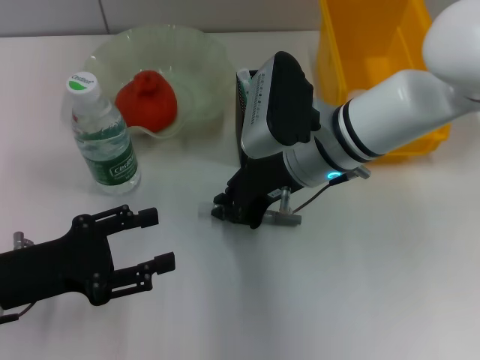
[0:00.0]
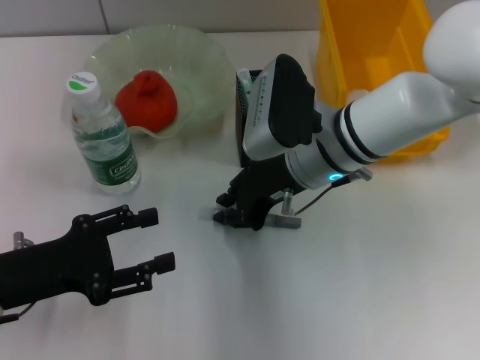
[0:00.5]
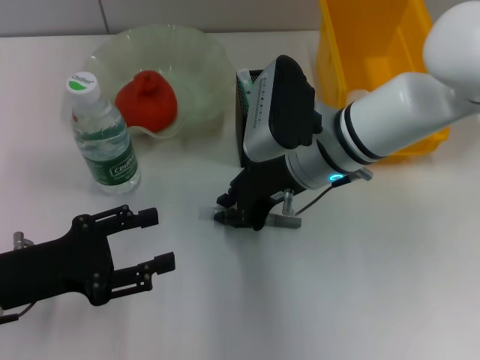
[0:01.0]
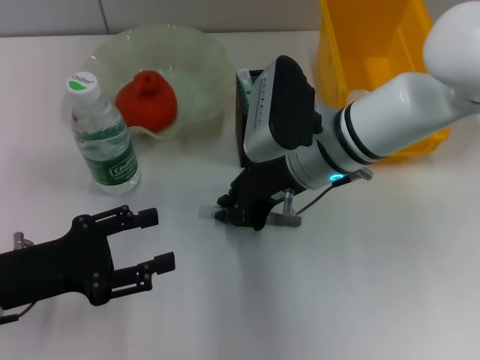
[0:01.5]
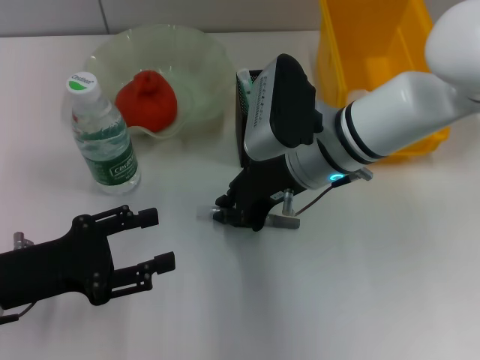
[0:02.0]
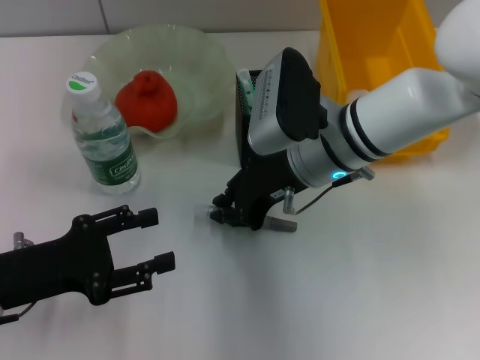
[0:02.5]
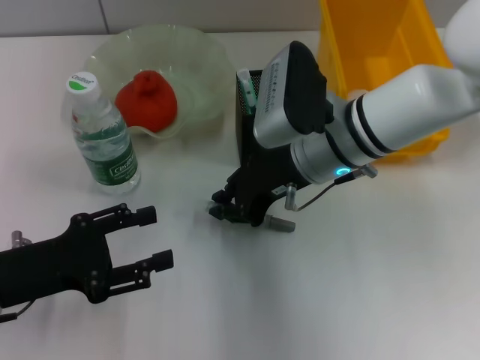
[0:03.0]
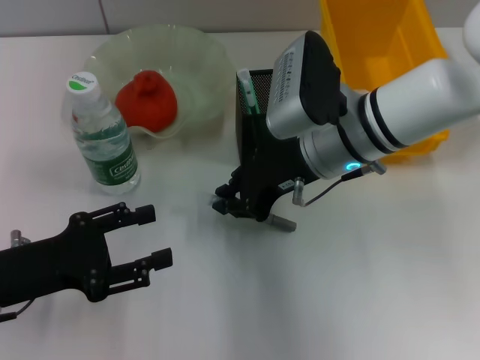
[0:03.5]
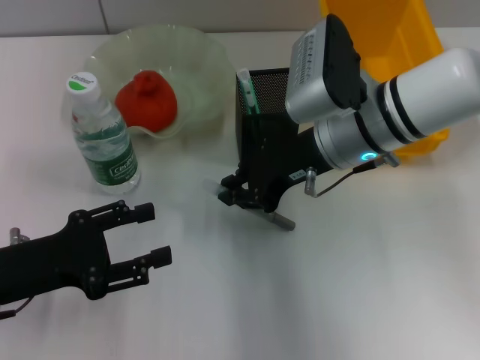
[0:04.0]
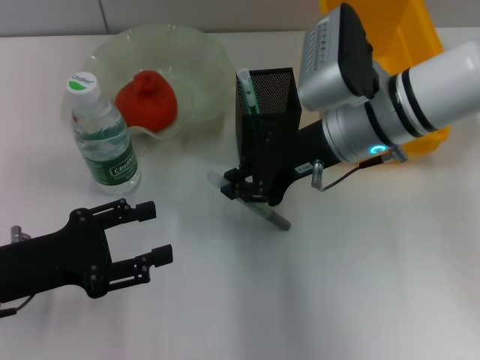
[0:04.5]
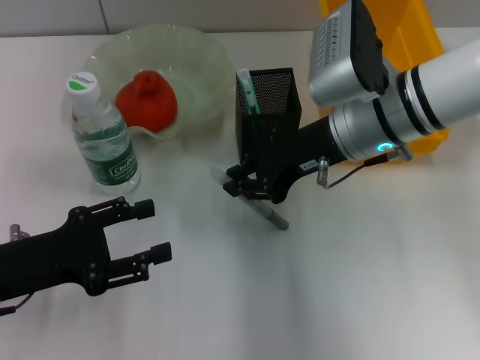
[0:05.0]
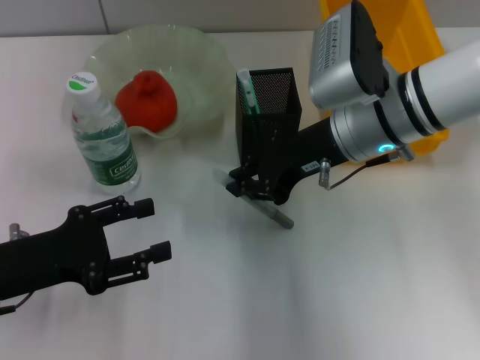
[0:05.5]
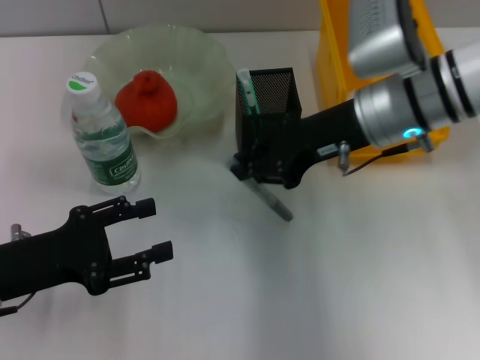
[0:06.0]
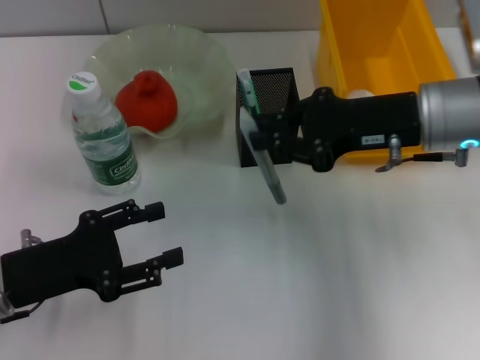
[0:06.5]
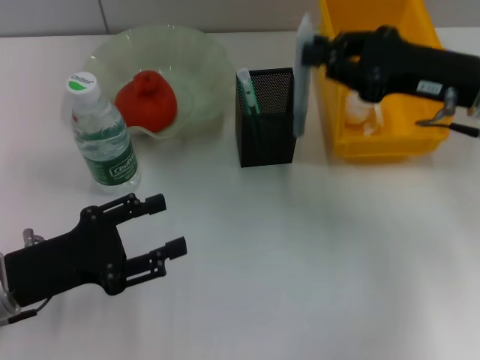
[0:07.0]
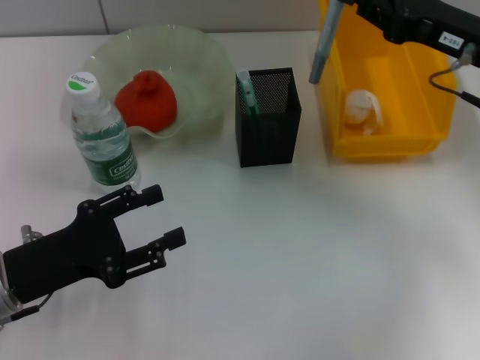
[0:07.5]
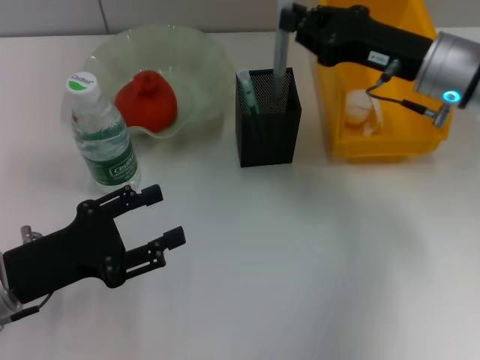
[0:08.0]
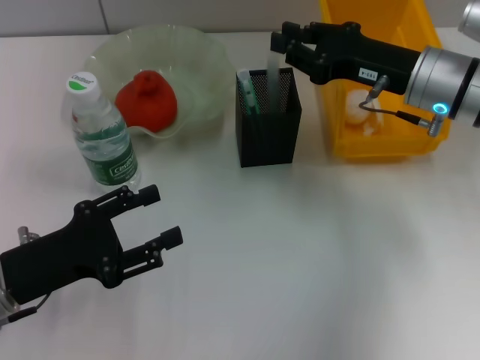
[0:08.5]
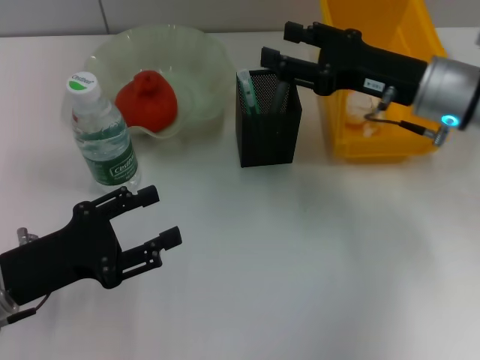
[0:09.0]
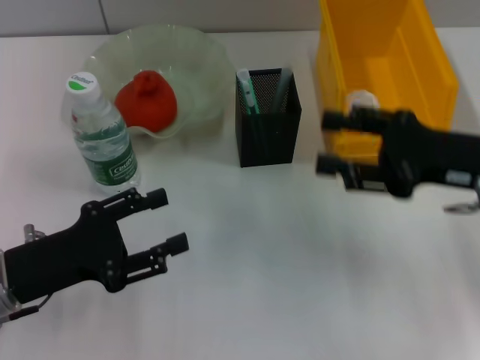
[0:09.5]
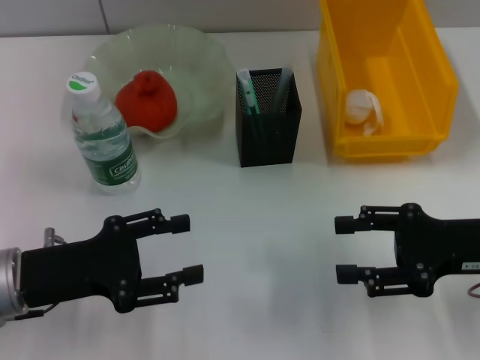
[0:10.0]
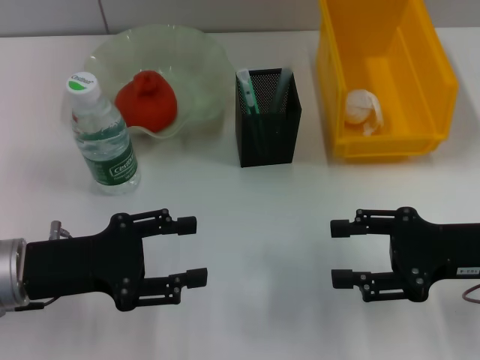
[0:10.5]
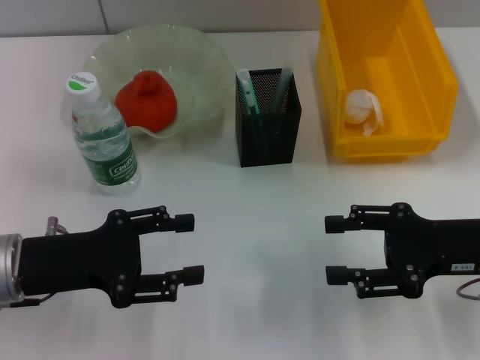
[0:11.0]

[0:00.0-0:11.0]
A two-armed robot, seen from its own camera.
Step, 0:00.0 to 0:02.0: Grab the gray glue with the right hand.
Step, 0:02.5 to 0:08.5: Place the gray glue into the pen holder with the right hand.
0:00.0 to 0:02.0: Both grippers stay about where they are.
0:02.0 to 0:05.5: The grippers stay close to where they were, moving slightly.
0:05.5 to 0:07.5: The right gripper is displaced to the right by about 15 cm.
0:07.5 to 0:09.0: The right gripper changes place by roughly 5 cm, and opens up.
0:09.0 to 0:11.0: The right gripper travels backward and to the right by approximately 15 cm.

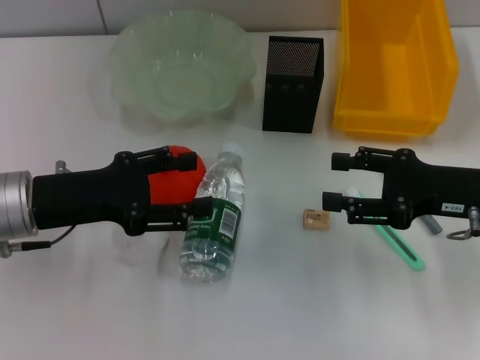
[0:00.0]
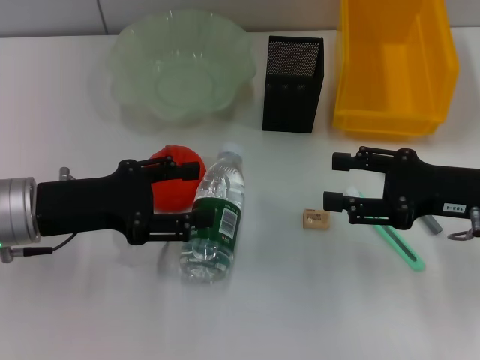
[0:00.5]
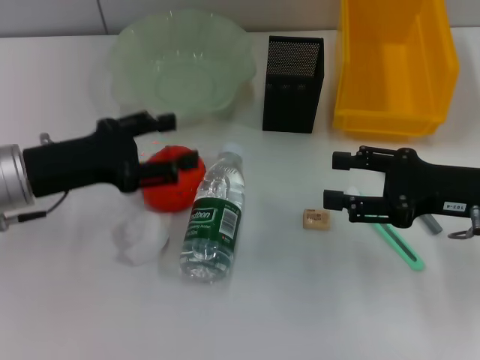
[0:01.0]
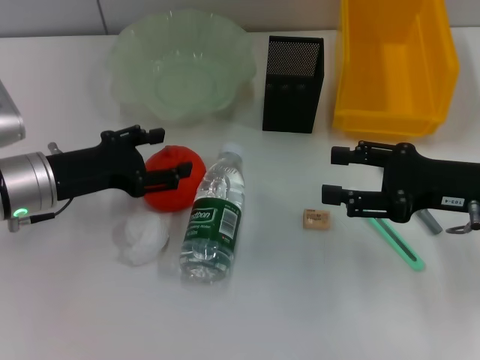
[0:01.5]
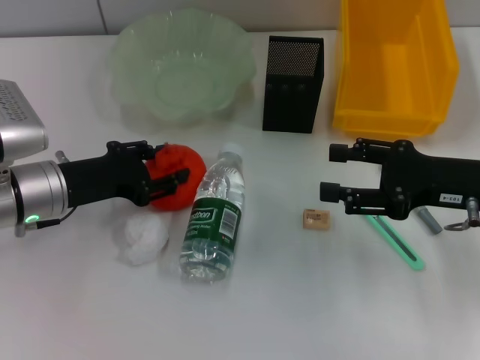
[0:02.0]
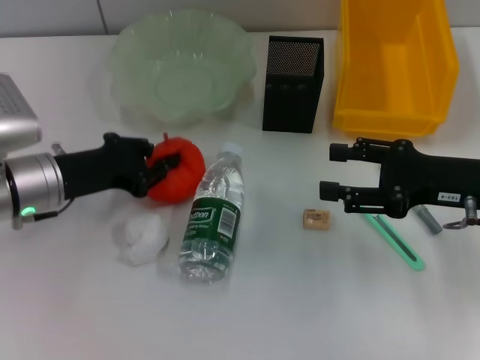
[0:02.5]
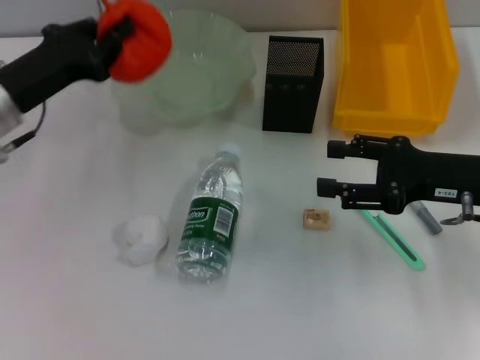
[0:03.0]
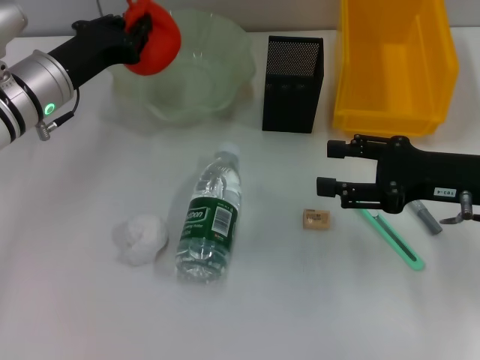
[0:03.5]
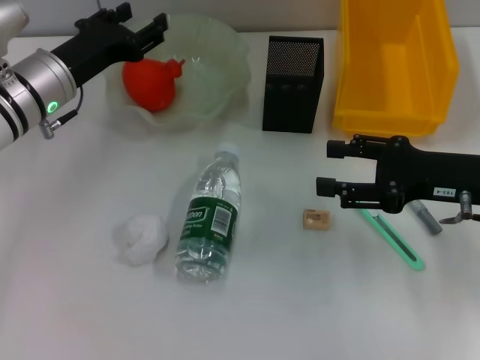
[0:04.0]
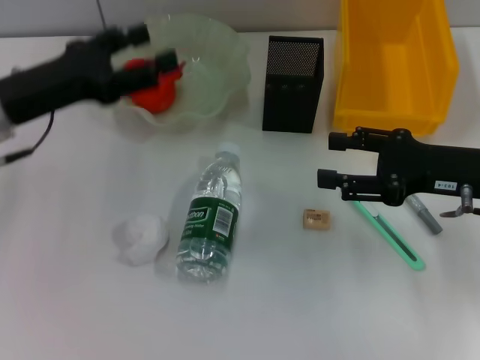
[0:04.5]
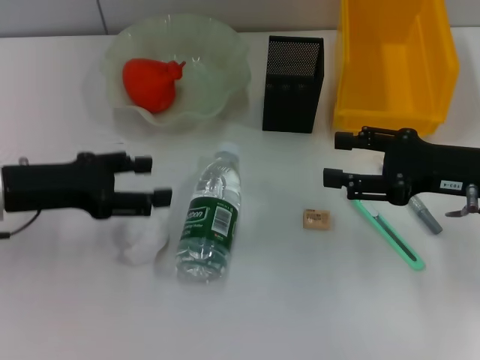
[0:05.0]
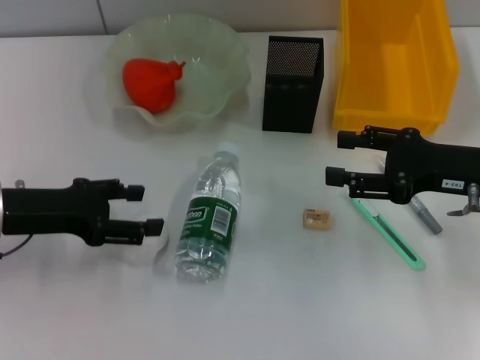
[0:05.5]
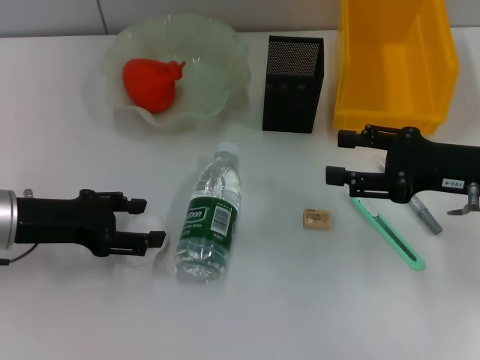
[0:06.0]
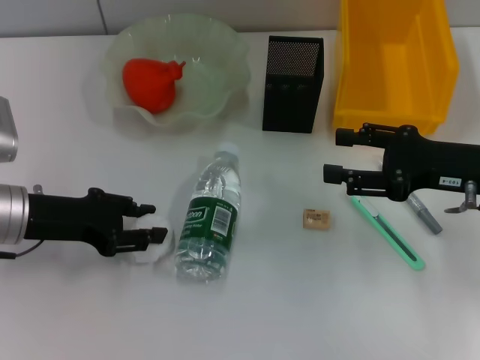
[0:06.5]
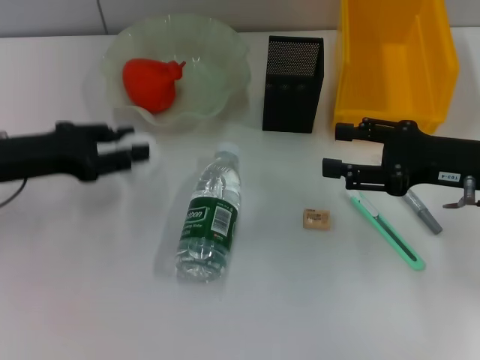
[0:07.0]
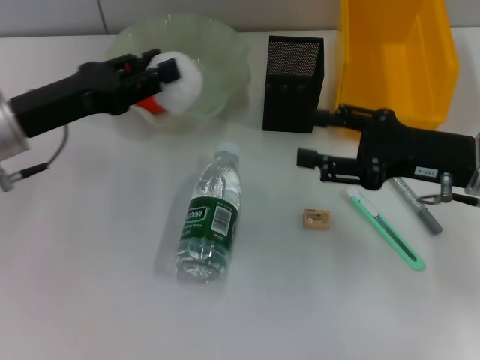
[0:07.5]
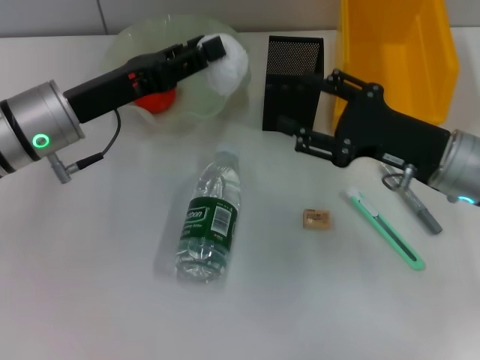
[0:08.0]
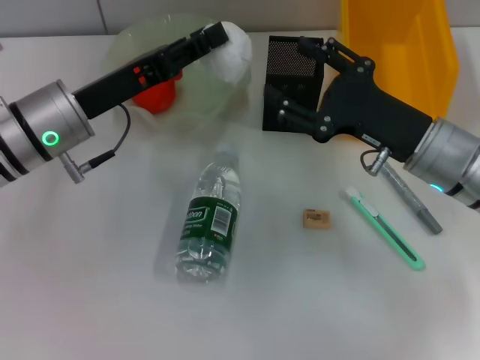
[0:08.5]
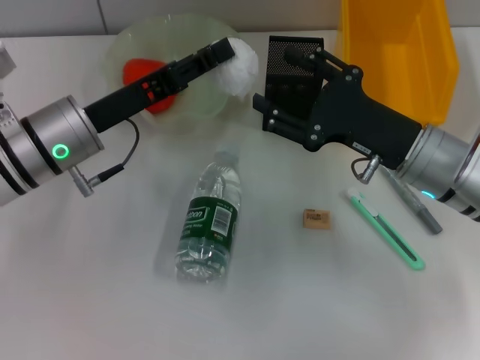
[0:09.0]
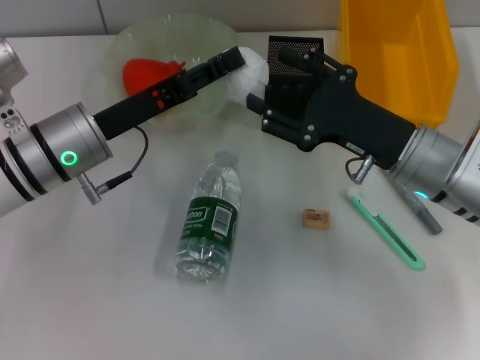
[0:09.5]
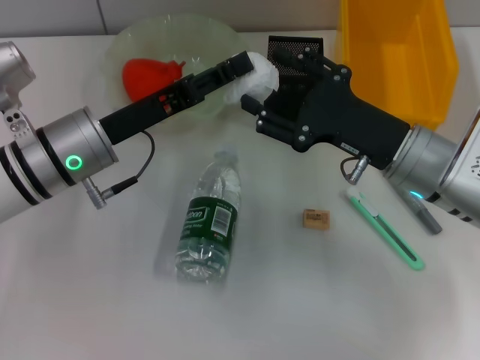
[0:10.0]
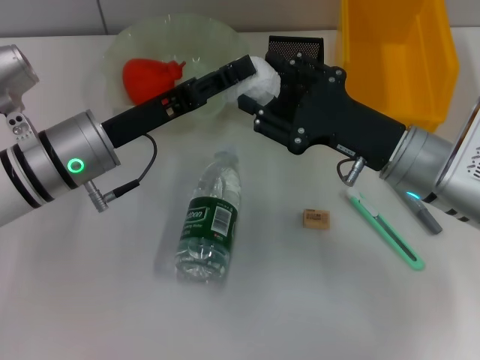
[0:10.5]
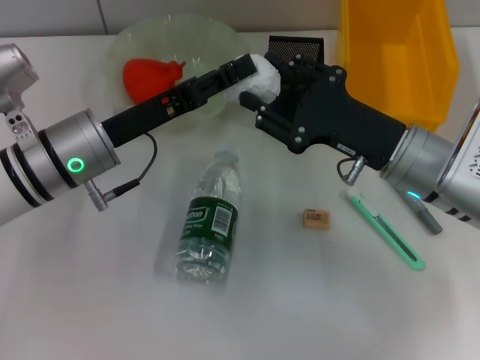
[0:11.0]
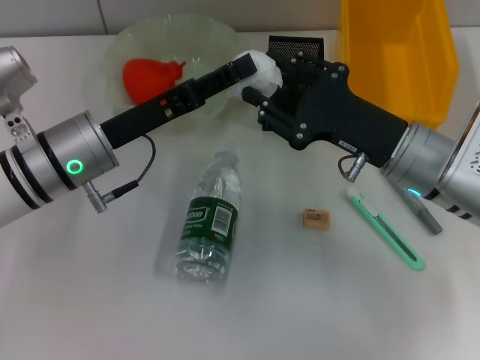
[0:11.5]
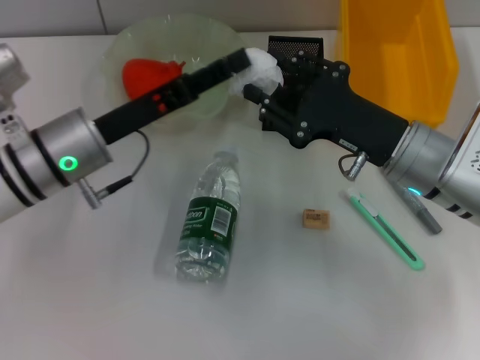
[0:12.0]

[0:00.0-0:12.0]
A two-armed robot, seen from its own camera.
Step, 0:00.0 to 0:02.0: Grab the orange with the left hand.
Step, 0:02.5 to 0:03.5: Place the orange into the fruit bowl with the left hand.
Step, 0:04.5 to 0:06.0: Grab the paper ball with the left hand.
Step, 0:06.5 to 0:12.0: Pass the paper ball from the left hand to the right hand.
0:00.0 to 0:02.0: The left gripper moves some 5 cm.
0:02.0 to 0:04.0: The left gripper shifts approximately 10 cm forward, and closes, then opens again.
0:04.0 to 0:06.0: The left gripper is displaced backward and to the left by approximately 10 cm.
0:06.0 to 0:08.0: The right gripper moves to the left, about 5 cm; the left gripper heads to the right, covering some 5 cm, and closes up.
0:10.0 to 0:12.0: The left gripper opens; the right gripper closes its fingers.

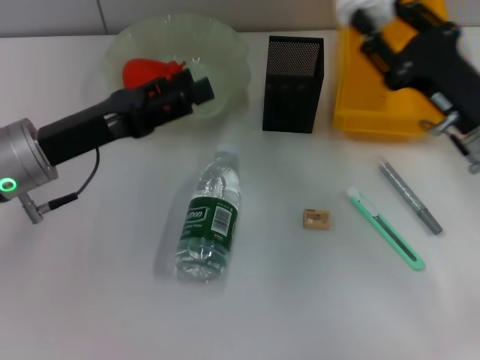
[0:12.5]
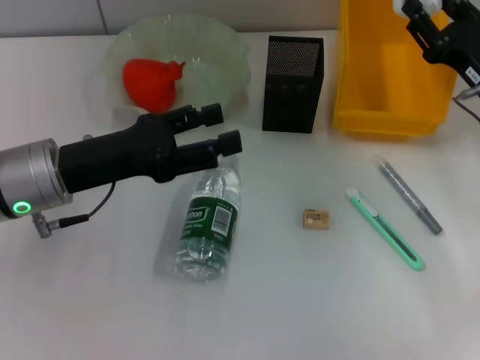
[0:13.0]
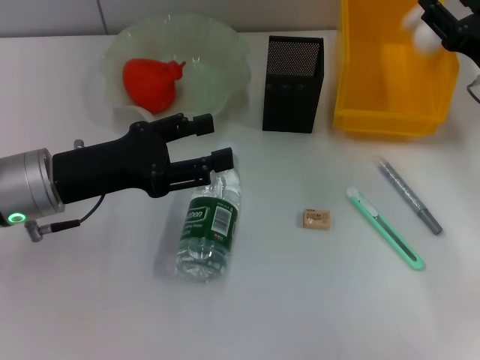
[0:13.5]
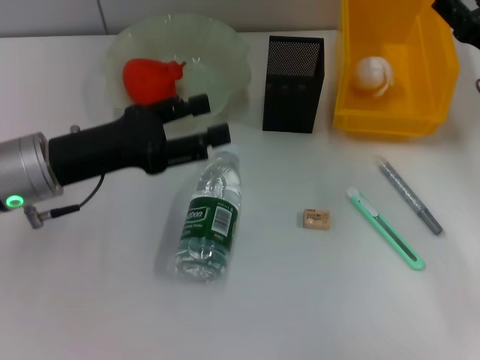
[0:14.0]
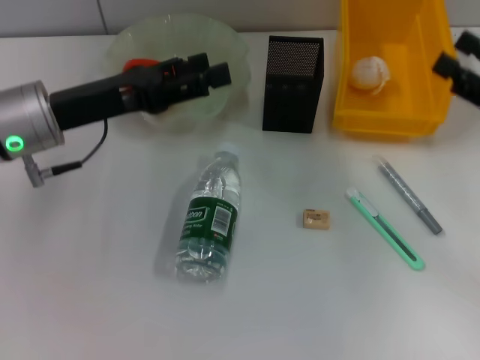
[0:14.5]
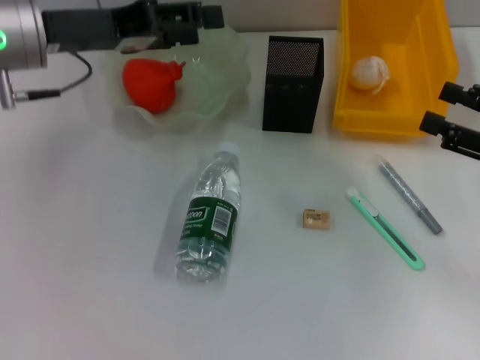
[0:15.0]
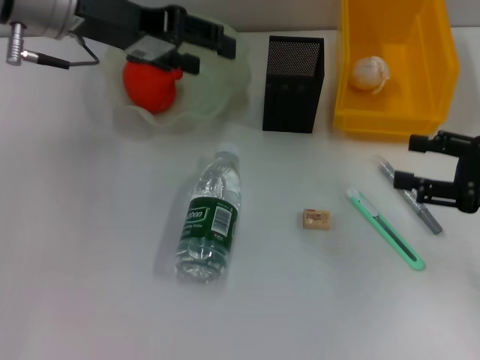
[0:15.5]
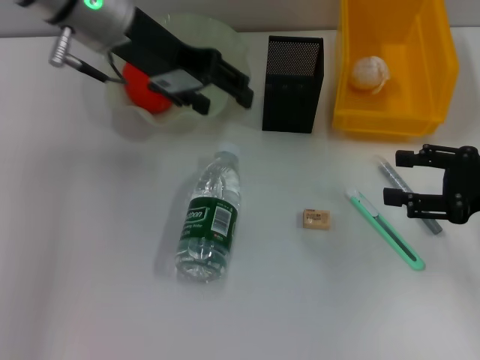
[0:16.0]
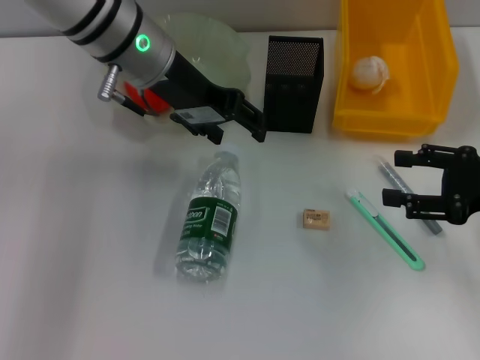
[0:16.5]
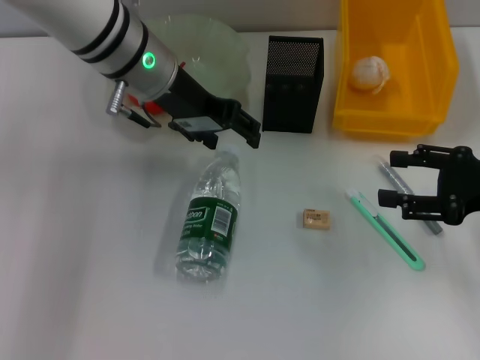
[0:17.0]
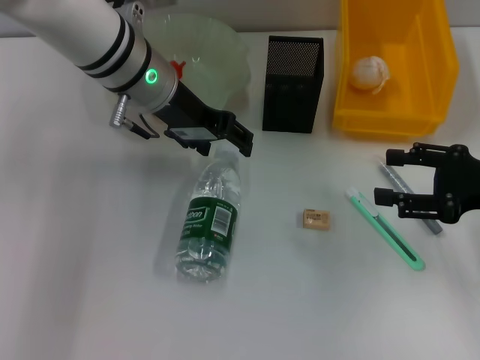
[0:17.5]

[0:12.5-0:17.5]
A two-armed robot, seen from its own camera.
Step, 0:12.5 to 0:13.5: Place the paper ball into the trash can with the right hand.
0:12.5 to 0:15.0: The left gripper is displaced upward and forward by about 10 cm; the right gripper is displaced to the right by about 10 cm, and opens its fingers.
0:15.0 to 0:17.5: The left gripper heads to the right, covering roughly 10 cm.
